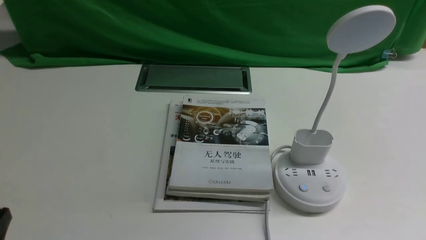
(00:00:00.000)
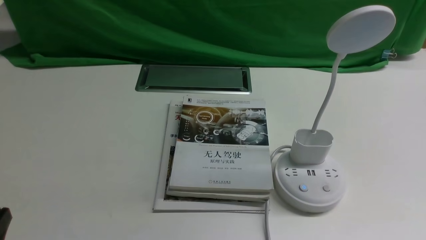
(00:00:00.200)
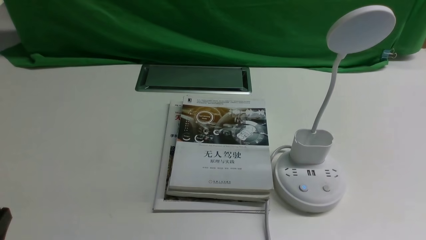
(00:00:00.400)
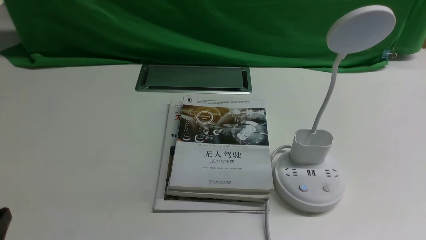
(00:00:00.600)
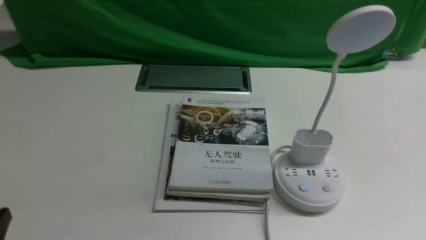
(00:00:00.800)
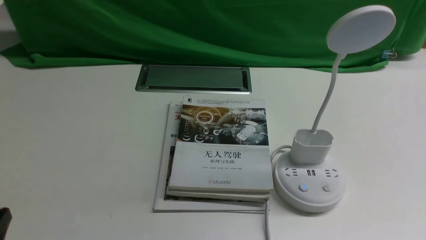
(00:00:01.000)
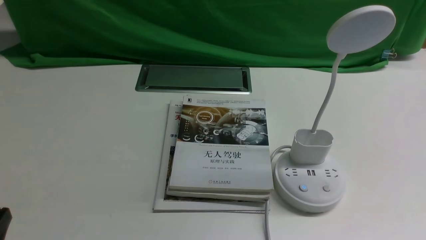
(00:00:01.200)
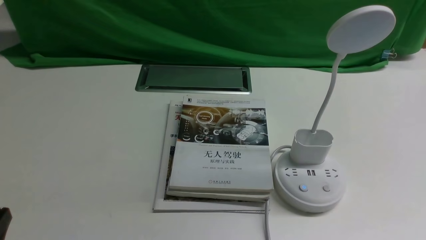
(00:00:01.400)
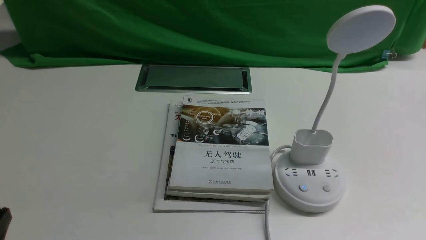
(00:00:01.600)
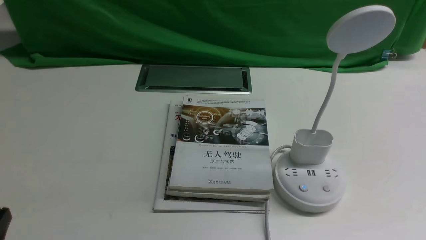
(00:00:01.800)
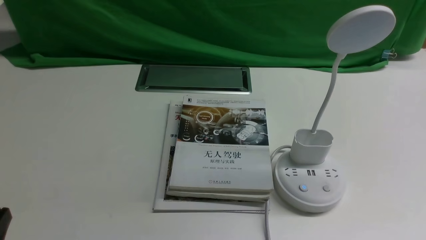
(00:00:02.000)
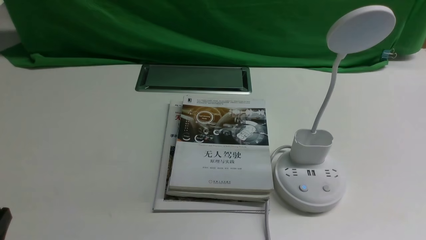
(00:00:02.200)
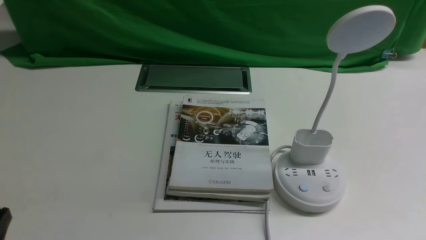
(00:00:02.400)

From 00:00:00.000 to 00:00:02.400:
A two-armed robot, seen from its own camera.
Task of the whole recording: turn off the desk lamp on the white desktop by hand.
From 00:00:00.000 to 00:00:01.200: The two grippers keep their place.
